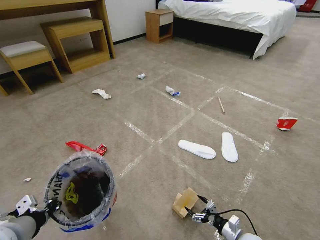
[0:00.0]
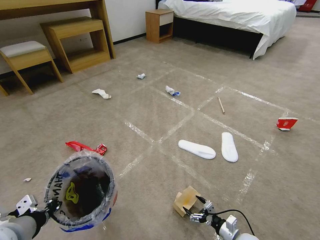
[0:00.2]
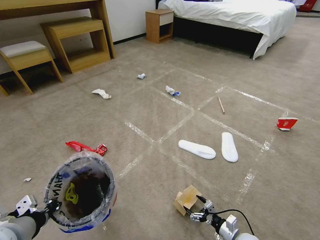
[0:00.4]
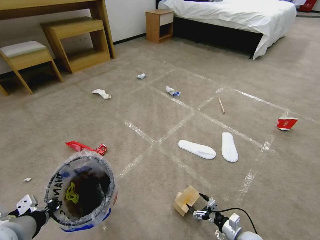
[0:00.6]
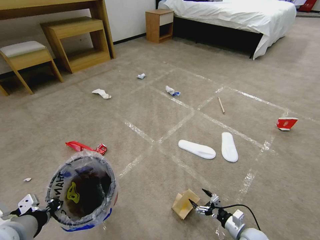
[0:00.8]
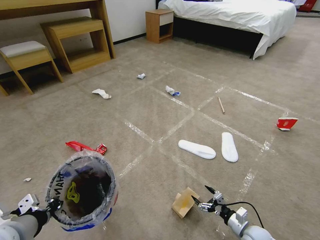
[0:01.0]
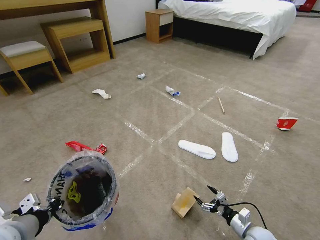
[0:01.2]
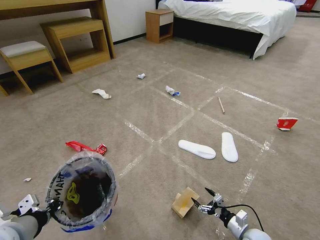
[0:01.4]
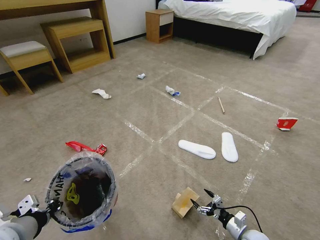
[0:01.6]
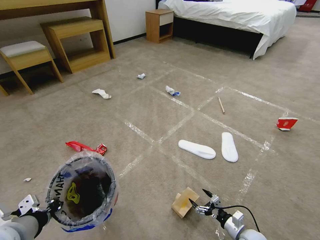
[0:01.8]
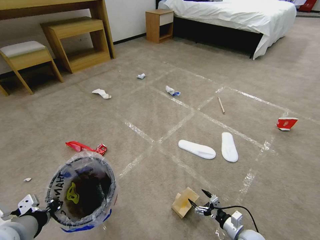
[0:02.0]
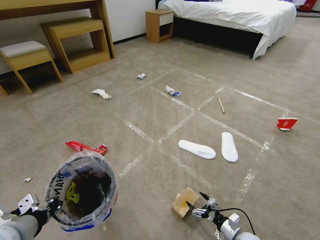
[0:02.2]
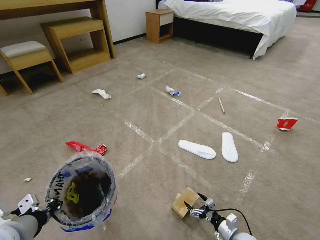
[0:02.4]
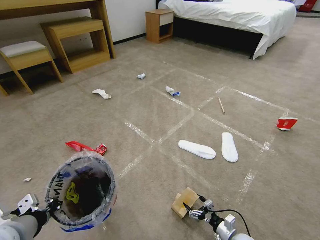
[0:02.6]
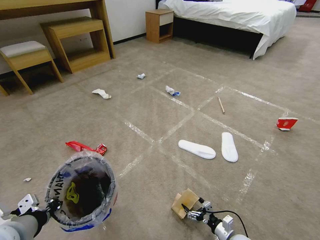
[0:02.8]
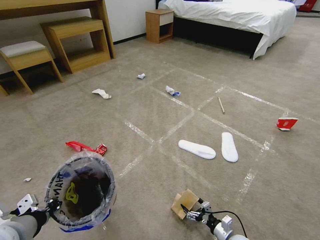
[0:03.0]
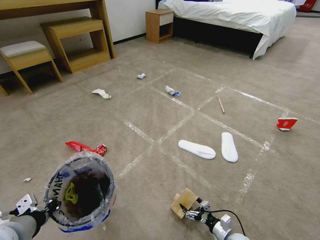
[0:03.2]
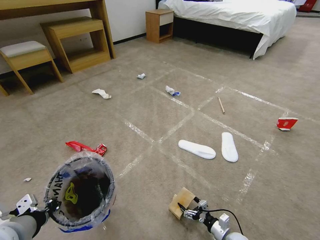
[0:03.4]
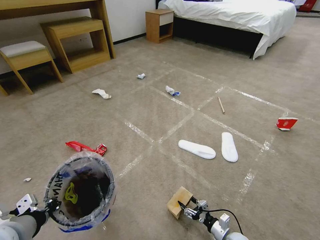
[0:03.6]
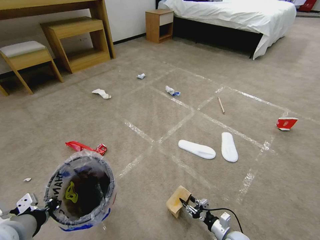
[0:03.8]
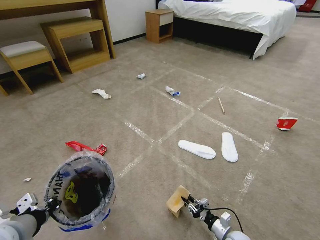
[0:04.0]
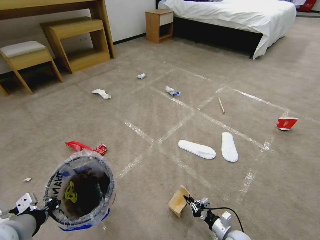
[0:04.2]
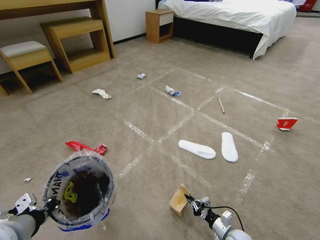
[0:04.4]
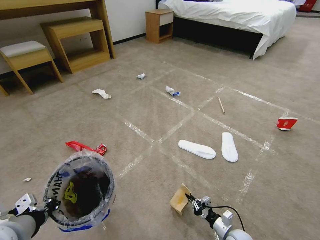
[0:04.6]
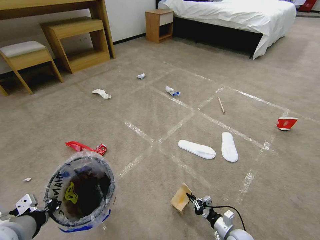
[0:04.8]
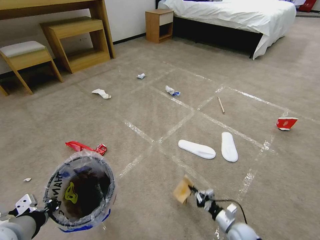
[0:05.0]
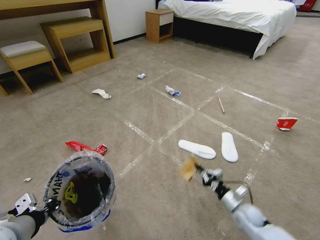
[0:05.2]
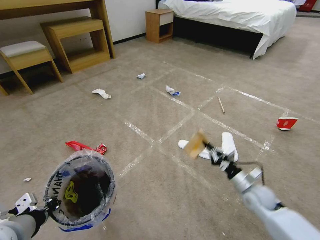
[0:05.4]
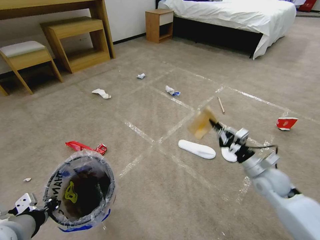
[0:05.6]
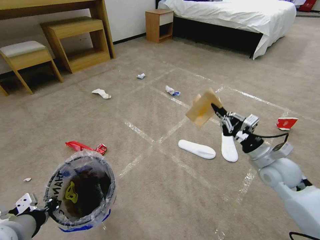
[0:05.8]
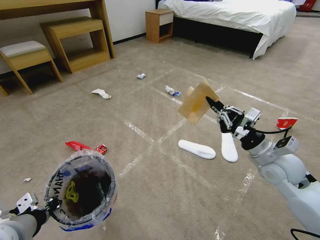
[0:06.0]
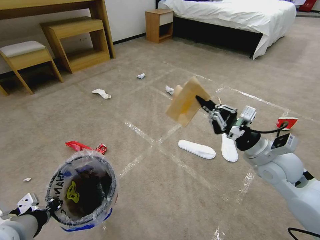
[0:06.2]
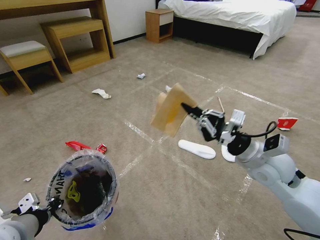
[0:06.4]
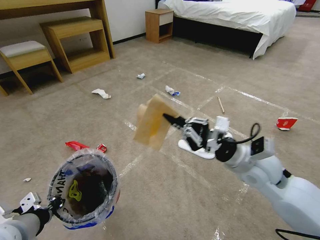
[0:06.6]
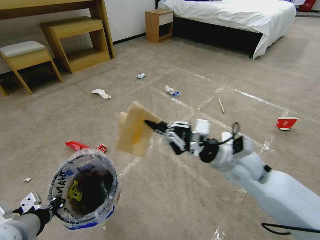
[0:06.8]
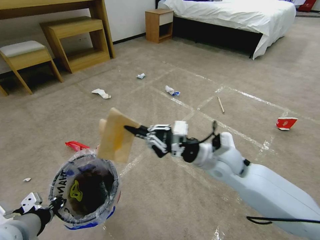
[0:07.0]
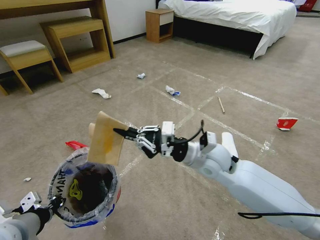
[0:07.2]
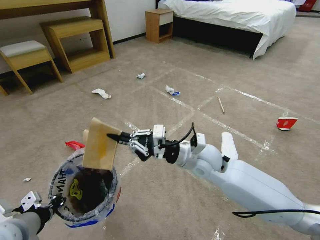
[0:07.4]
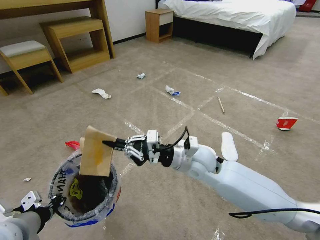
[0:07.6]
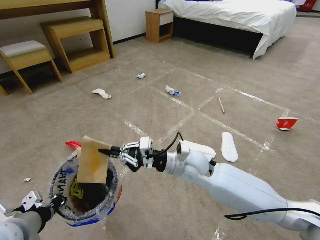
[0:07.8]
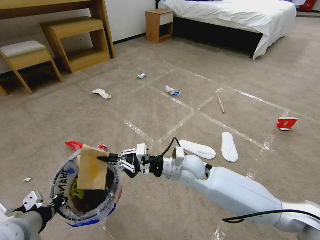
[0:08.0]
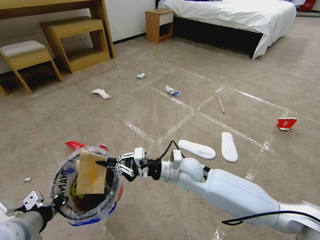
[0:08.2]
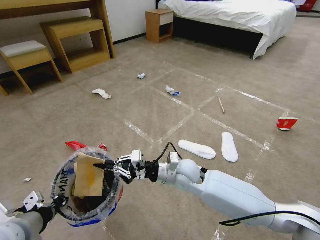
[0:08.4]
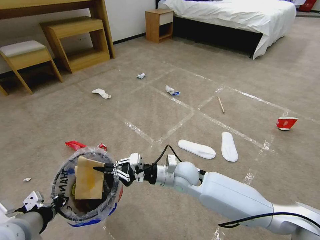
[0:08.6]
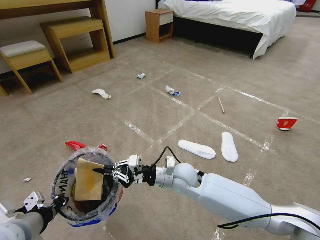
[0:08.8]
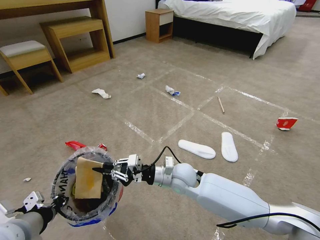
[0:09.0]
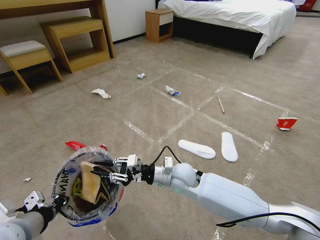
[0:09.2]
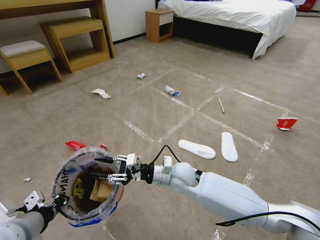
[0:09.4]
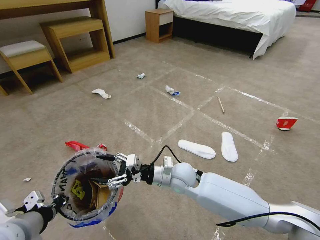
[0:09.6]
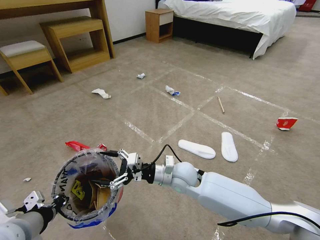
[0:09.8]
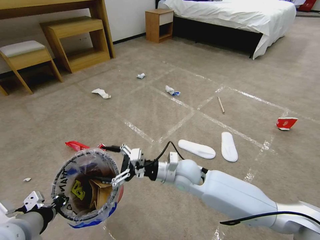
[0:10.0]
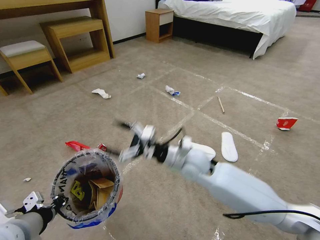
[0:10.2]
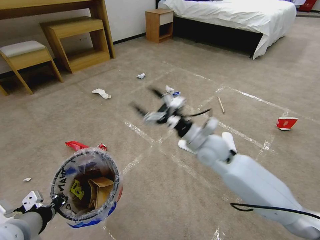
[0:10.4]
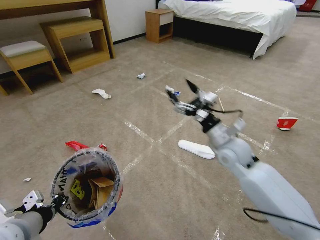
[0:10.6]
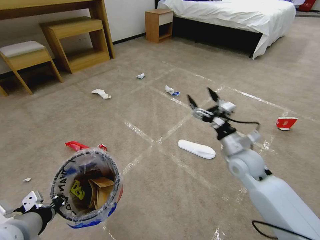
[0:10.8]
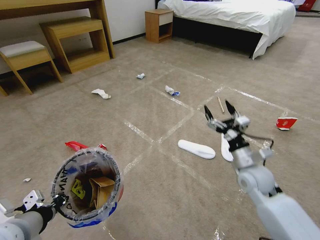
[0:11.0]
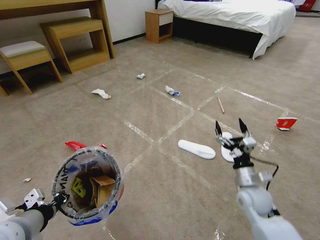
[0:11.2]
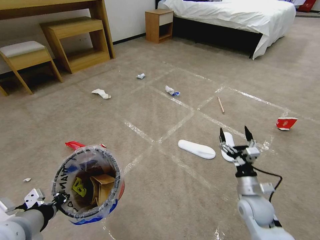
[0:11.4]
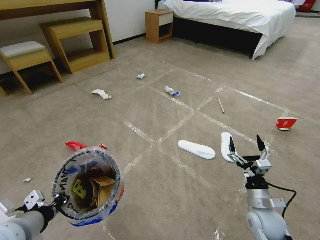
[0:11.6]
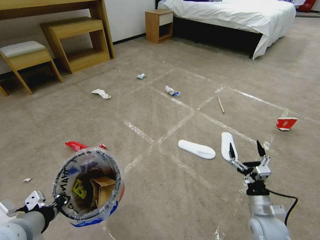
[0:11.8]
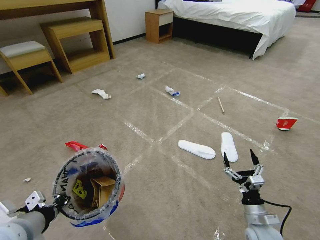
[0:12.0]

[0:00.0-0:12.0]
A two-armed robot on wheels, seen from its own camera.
Task of the whole recording: Pick up the trash bin and place the garbage on the floor into it.
0:00.0 to 0:01.6: There are only small adjustments of the grippers.
0:01.6 to 0:03.0: The right gripper ends up some 5 cm from where it was.
0:03.0 to 0:04.4: The right gripper closes.
0:04.4 to 0:06.0: The right gripper shifts about 35 cm upward.
0:06.0 to 0:07.6: The right gripper travels to the left by approximately 20 cm.
0:07.6 to 0:09.0: The right gripper heads downward and to the left, covering roughly 10 cm.
0:09.0 to 0:10.4: The right gripper moves upward and to the right, some 10 cm, and opens its fingers.
0:10.4 to 0:12.0: The right gripper travels downward, backward and to the right by roughly 35 cm.

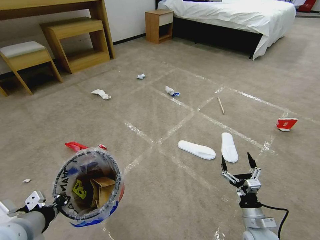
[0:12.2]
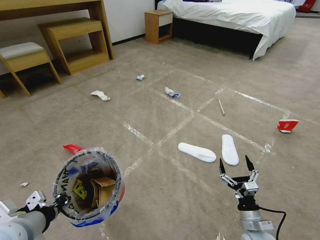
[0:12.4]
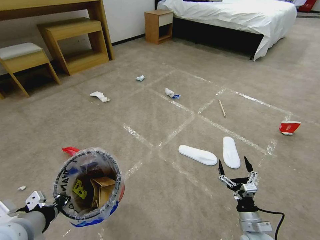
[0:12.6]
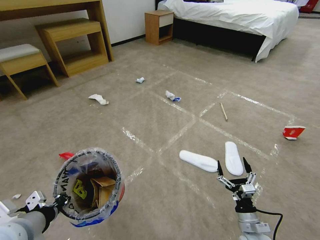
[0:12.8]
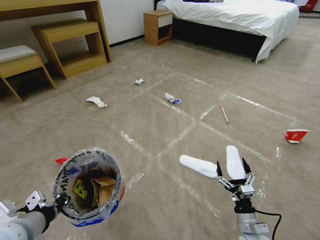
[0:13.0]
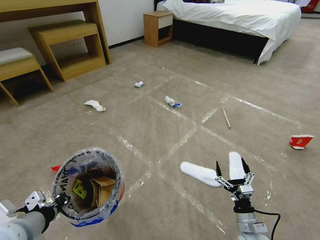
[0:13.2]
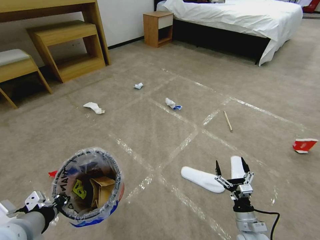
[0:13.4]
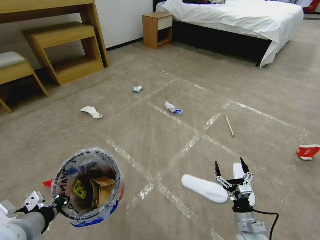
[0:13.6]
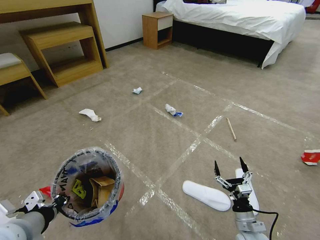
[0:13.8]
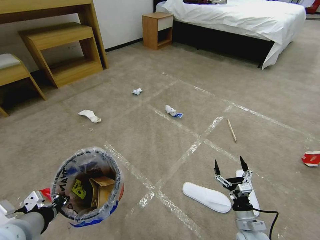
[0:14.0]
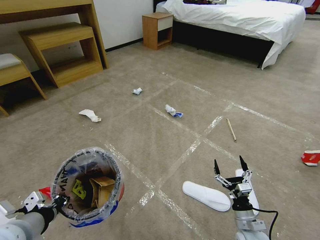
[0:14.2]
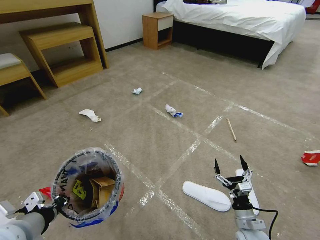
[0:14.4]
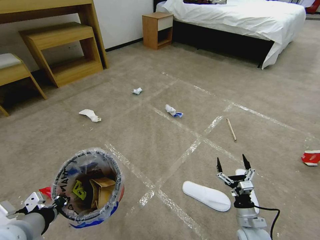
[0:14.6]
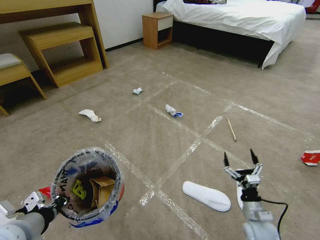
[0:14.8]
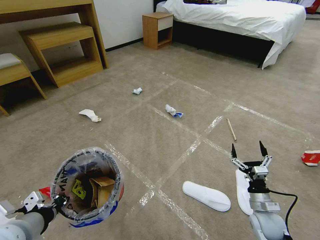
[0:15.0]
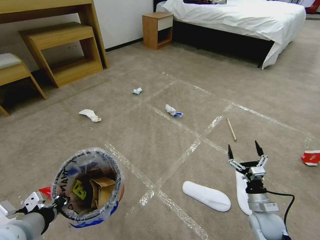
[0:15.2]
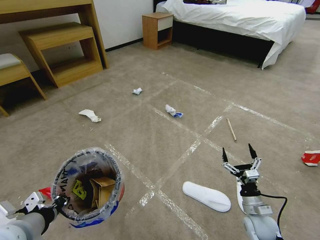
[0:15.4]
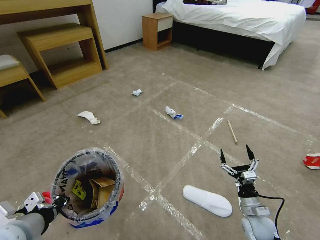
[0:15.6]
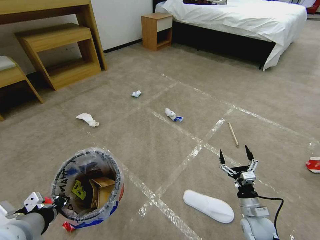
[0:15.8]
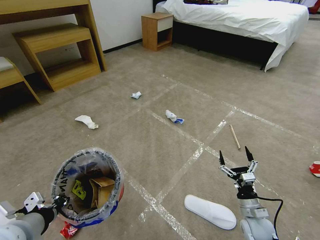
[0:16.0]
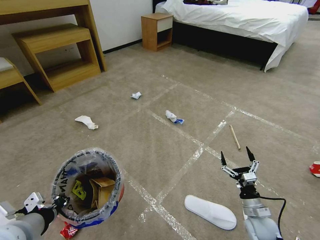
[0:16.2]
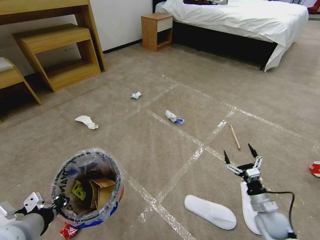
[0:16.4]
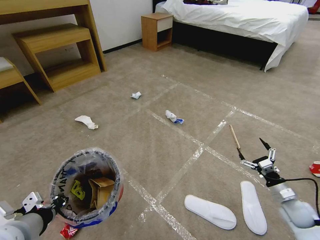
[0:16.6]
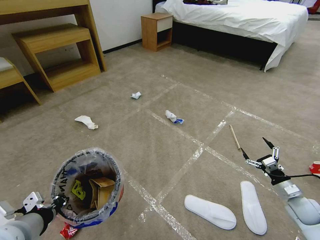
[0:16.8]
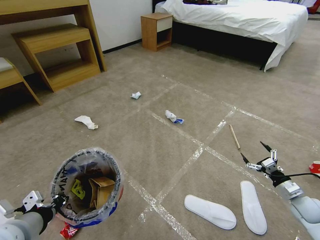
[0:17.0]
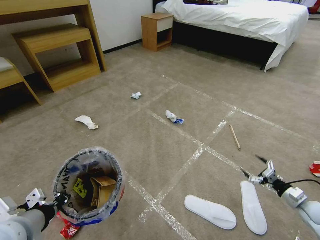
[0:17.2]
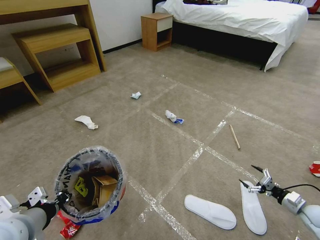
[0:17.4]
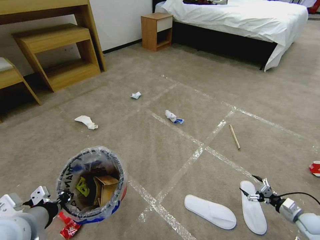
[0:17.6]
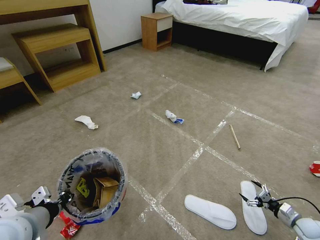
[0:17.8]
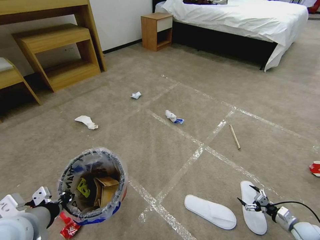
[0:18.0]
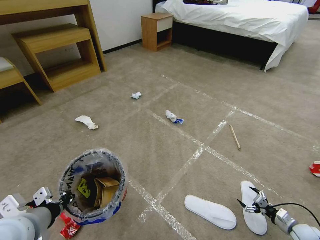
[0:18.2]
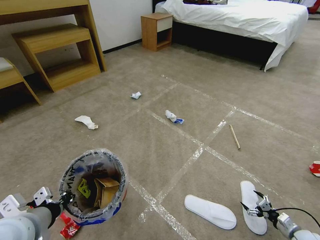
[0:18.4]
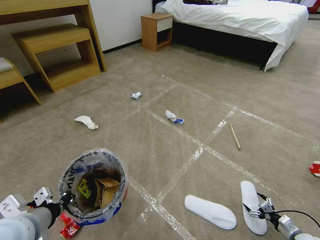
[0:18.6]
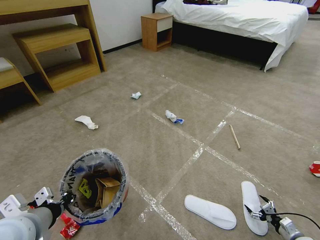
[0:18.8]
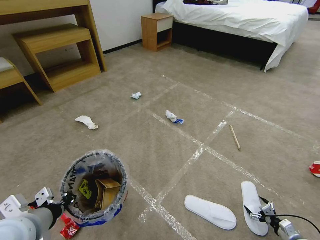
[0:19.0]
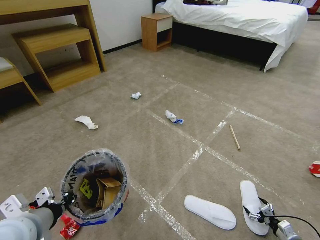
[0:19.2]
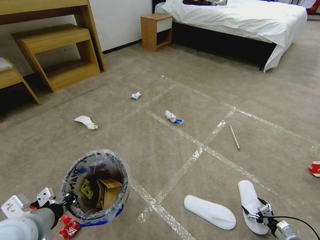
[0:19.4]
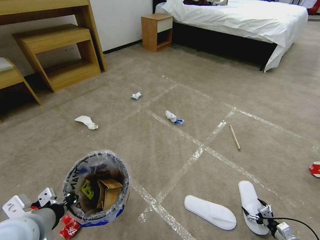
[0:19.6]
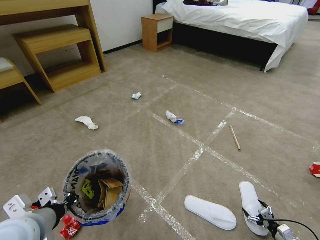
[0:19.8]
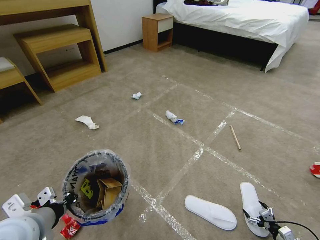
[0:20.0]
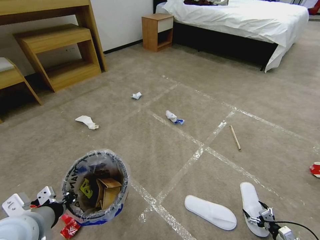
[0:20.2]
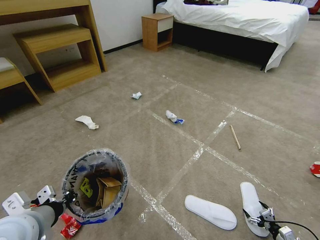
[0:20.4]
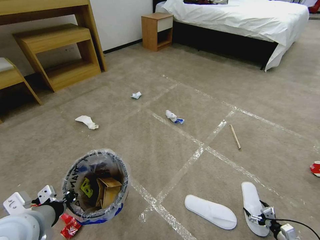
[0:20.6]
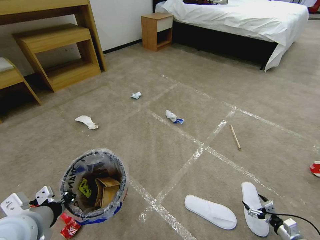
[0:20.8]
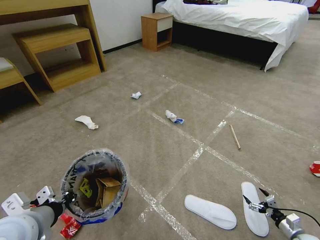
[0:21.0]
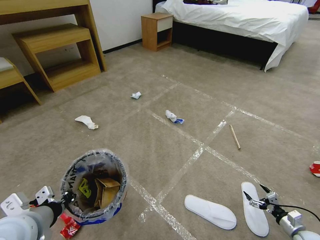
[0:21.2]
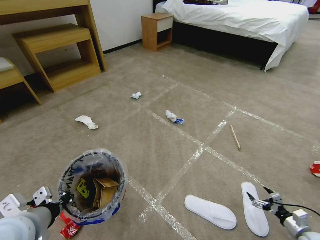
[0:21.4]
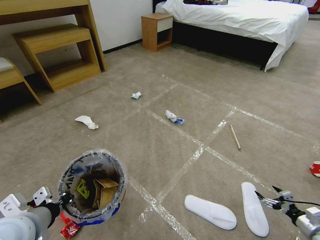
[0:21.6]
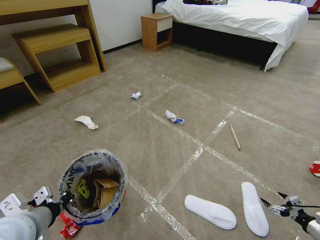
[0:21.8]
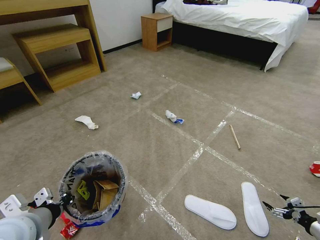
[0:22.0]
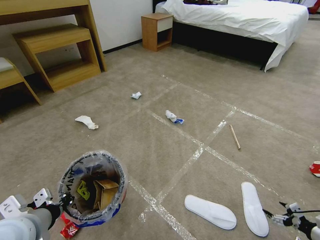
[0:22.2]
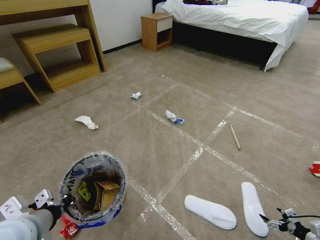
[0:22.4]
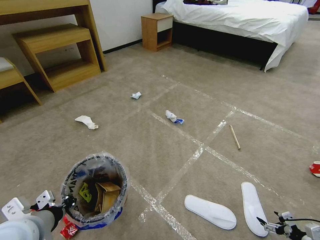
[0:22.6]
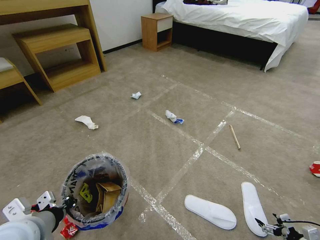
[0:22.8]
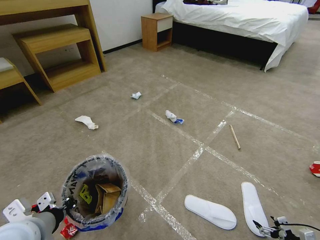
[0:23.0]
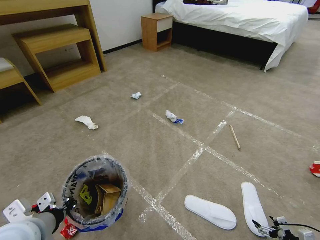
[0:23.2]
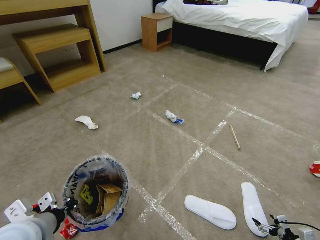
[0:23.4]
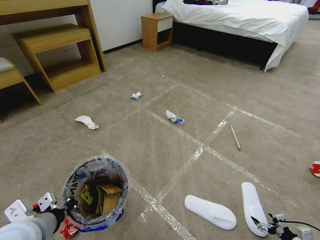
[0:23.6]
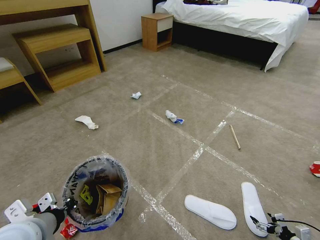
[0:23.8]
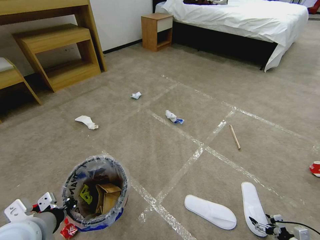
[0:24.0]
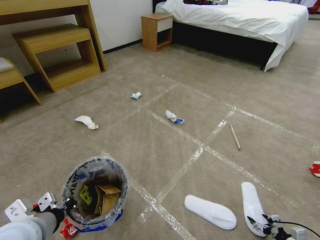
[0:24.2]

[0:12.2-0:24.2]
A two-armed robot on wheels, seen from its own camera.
Task of the whole recording: Pick up the trash bin and place the garbage on the floor into it.
0:13.8 to 0:15.2: The right gripper shifts approximately 5 cm to the right and forward.
0:15.2 to 0:16.6: The right gripper travels to the right by some 10 cm.
0:16.6 to 0:18.2: The right gripper heads downward and to the right, covering about 15 cm.
0:18.2 to 0:19.8: The right gripper is displaced backward by about 5 cm.
0:19.8 to 0:21.2: The right gripper shifts approximately 5 cm upward.
0:21.2 to 0:22.6: The right gripper shifts approximately 10 cm upward and backward.
0:22.6 to 0:24.2: The right gripper travels downward by approximately 5 cm.
